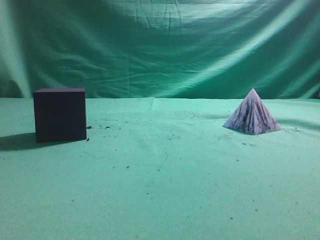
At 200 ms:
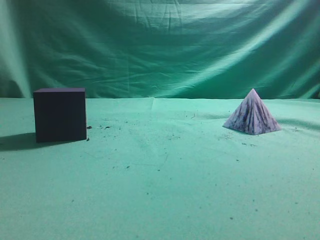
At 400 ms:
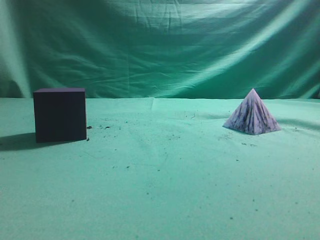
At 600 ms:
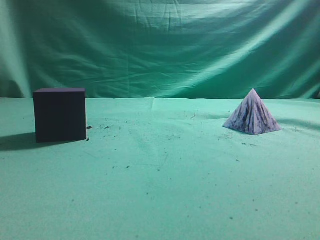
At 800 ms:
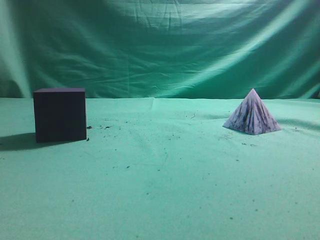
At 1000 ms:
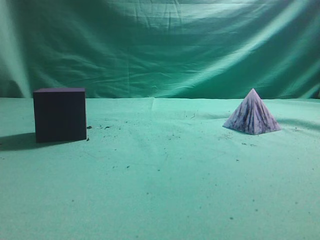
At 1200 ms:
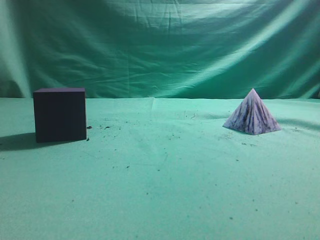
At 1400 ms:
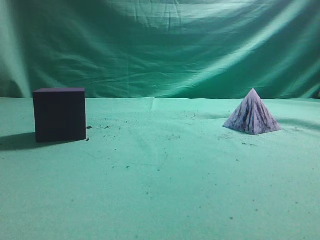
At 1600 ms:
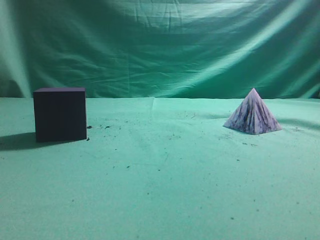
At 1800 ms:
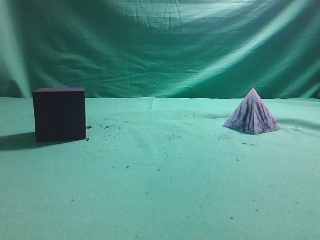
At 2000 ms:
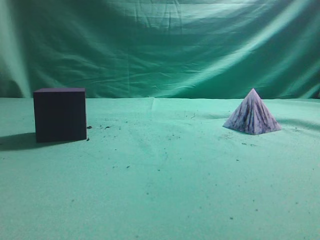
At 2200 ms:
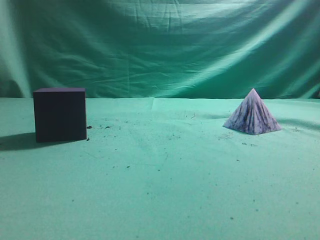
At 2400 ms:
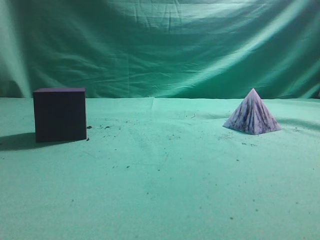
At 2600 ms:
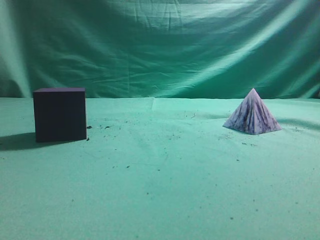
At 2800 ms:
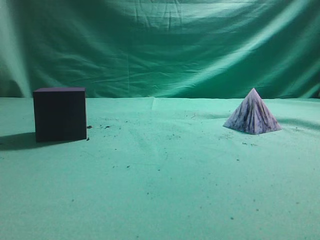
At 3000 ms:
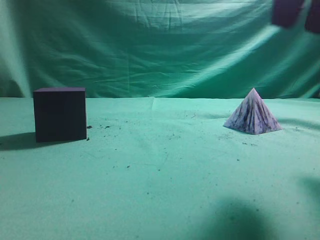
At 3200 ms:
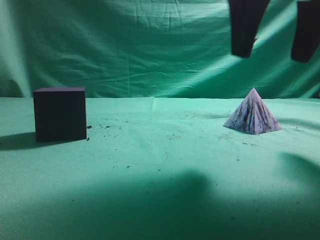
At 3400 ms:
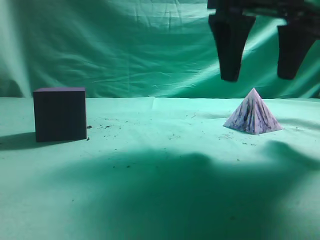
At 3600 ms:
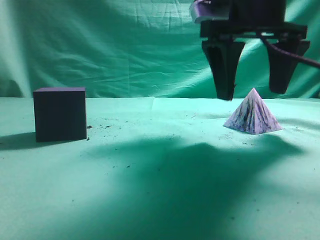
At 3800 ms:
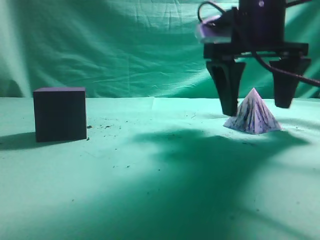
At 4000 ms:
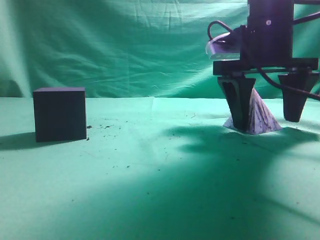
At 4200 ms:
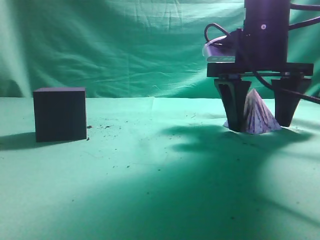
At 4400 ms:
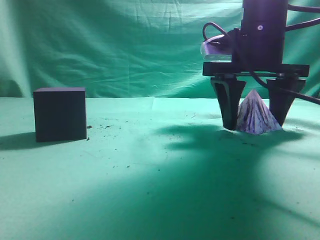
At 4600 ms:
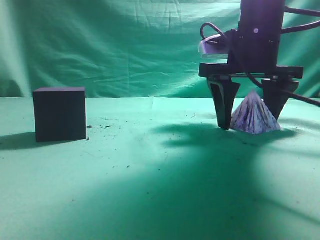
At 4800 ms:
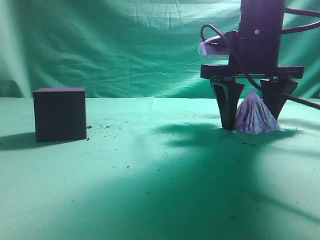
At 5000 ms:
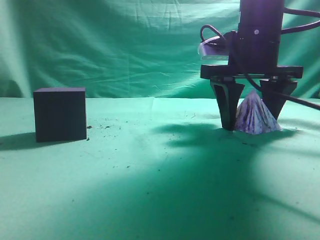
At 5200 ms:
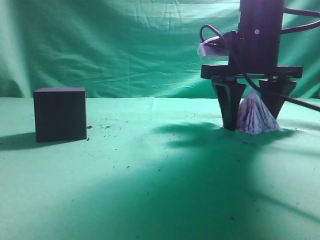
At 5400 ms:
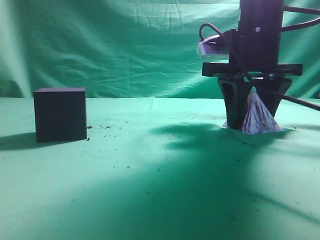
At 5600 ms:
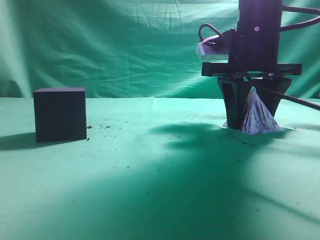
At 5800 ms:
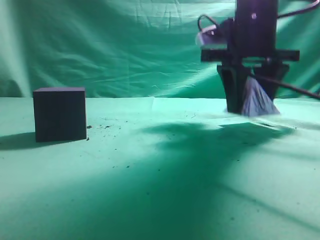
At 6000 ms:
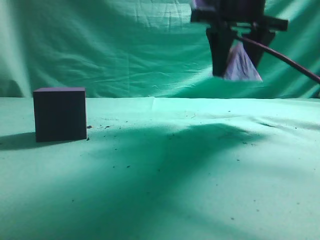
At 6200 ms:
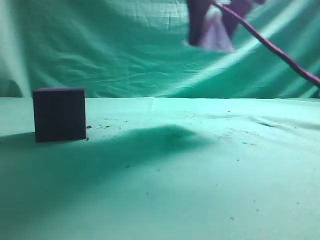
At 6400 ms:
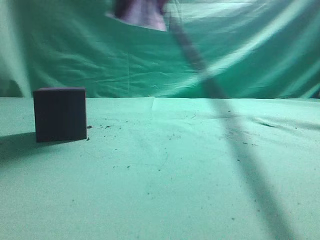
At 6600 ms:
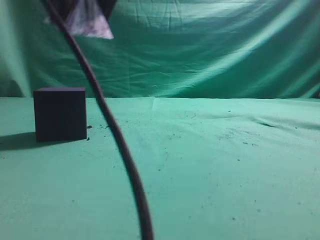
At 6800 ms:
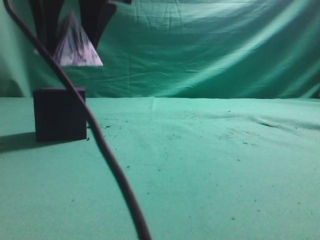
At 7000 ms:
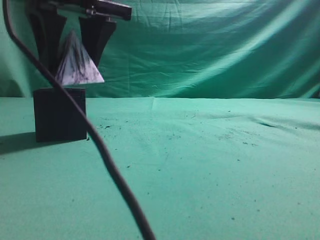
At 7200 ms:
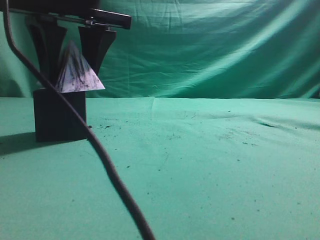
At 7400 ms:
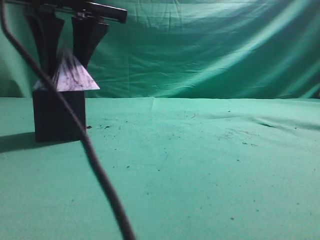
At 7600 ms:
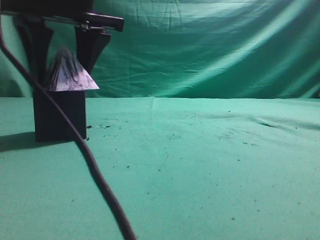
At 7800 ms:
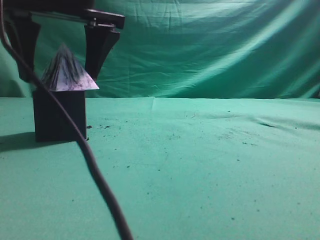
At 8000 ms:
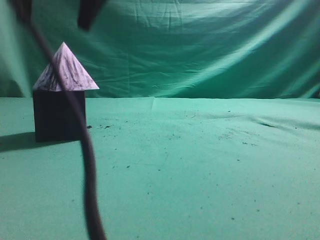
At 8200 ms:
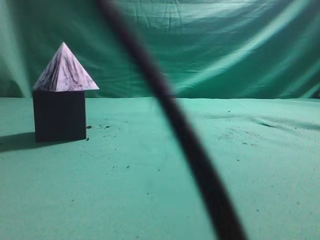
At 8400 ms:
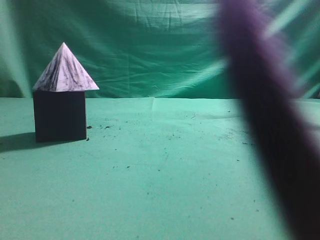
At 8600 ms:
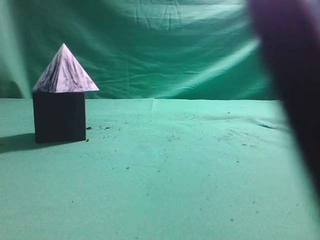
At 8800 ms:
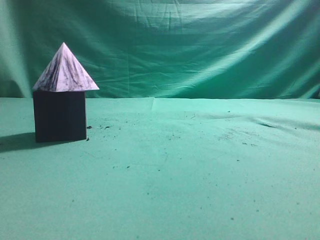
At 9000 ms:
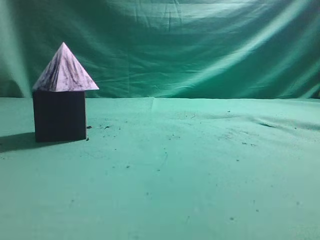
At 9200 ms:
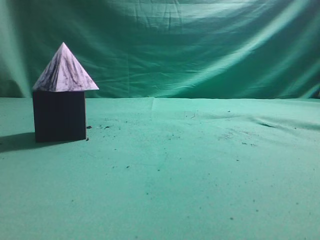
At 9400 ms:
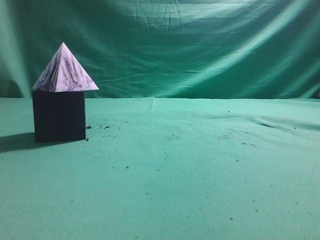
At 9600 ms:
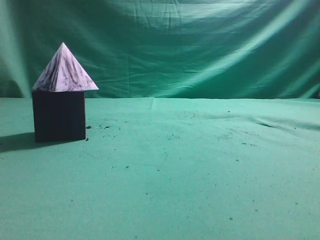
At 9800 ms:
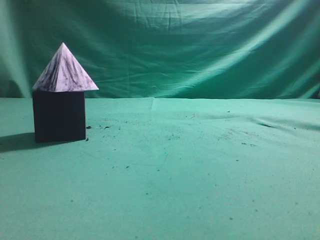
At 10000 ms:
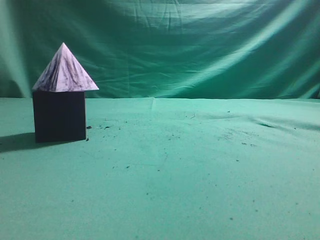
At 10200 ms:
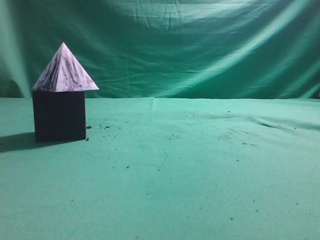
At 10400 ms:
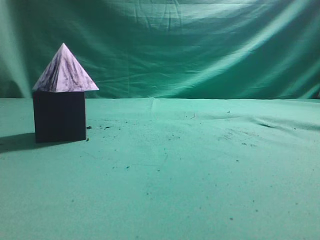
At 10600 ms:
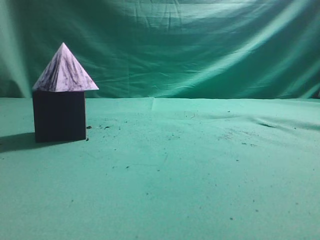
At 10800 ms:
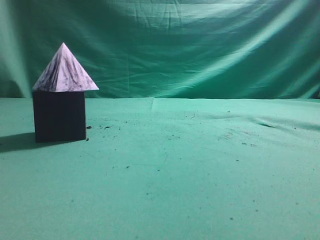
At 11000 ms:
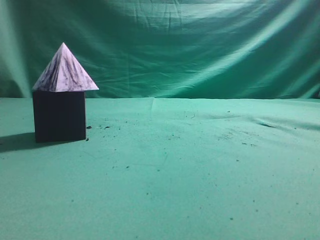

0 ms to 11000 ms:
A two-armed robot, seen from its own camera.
Task of the whole recording: pick up the square pyramid from the table and place it on the cube block.
Step, 0 ms to 5800 ms: Grasp the triangular block.
Step, 6000 ms to 7800 ms: Place the block onto the cube-shaped block.
1600 ms to 3200 ms: The right gripper heads forward and to the left, covering roughly 25 cm, and opens.
3200 ms to 4800 ms: The right gripper shifts about 15 cm forward and downward.
4800 ms to 6200 ms: The right gripper heads upward, covering about 10 cm.
6200 ms to 7800 ms: The right gripper shifts about 20 cm to the left and backward.
7800 ms to 9400 ms: The right gripper travels to the right, backward and upward by some 40 cm, and closes its fingers.
